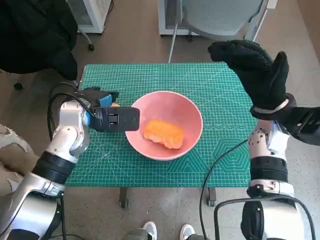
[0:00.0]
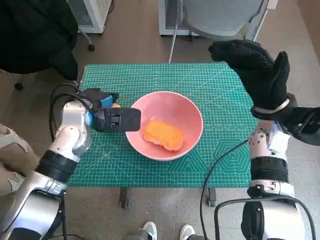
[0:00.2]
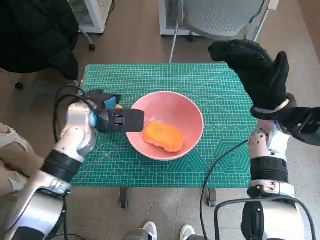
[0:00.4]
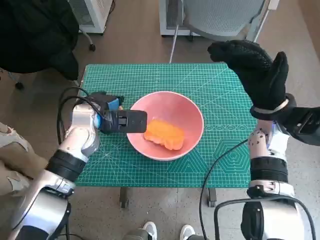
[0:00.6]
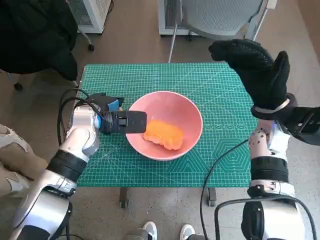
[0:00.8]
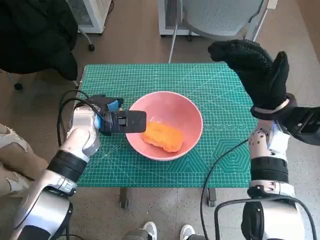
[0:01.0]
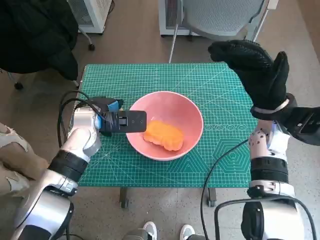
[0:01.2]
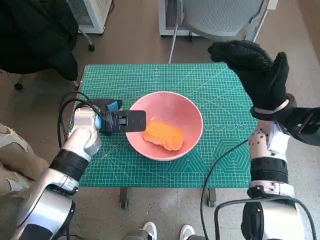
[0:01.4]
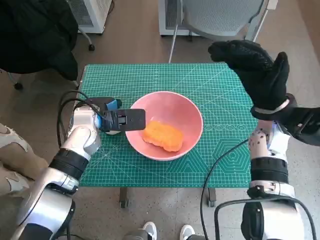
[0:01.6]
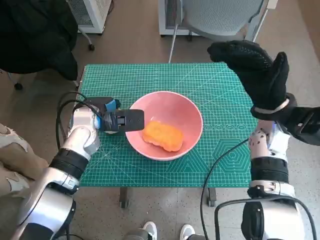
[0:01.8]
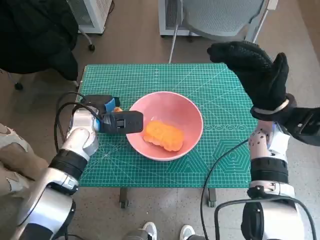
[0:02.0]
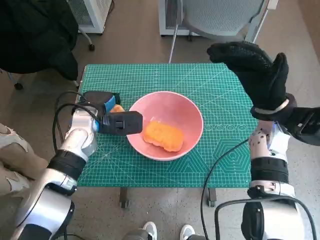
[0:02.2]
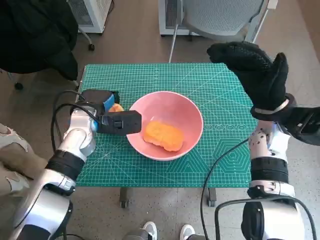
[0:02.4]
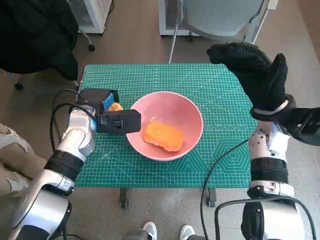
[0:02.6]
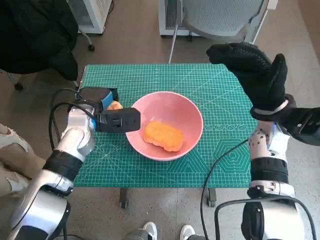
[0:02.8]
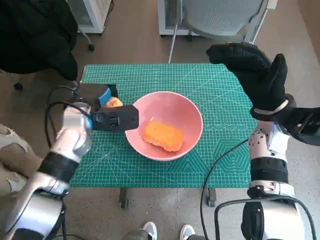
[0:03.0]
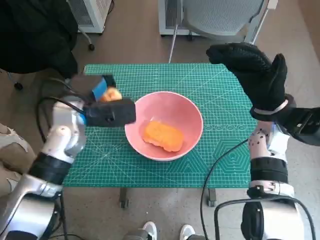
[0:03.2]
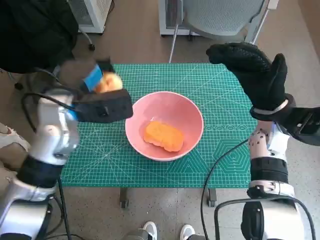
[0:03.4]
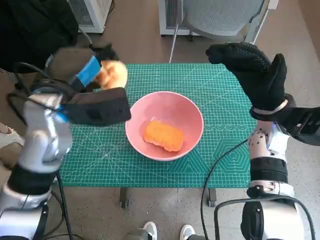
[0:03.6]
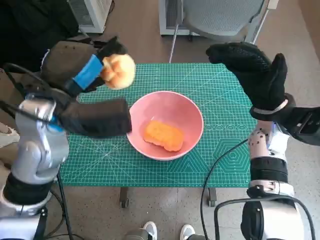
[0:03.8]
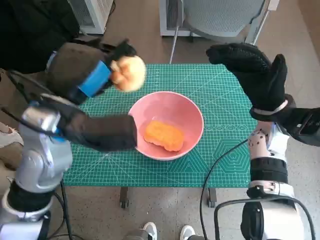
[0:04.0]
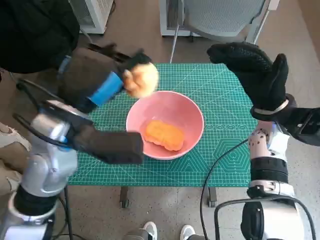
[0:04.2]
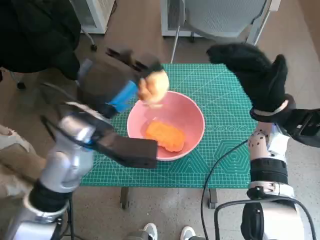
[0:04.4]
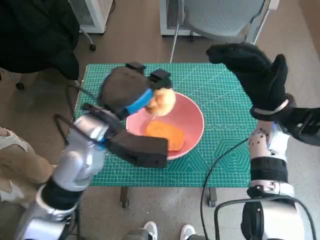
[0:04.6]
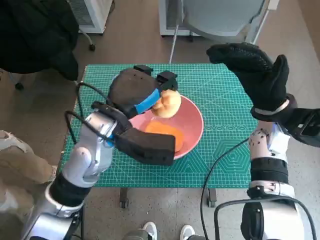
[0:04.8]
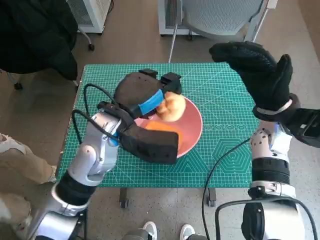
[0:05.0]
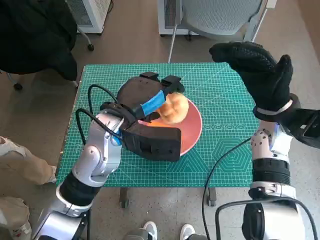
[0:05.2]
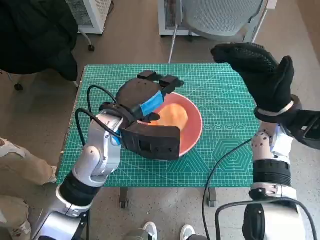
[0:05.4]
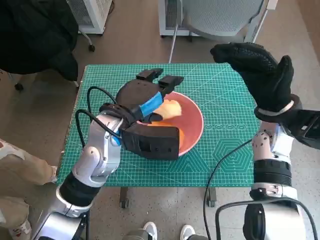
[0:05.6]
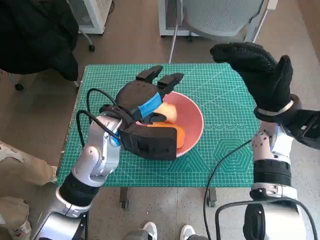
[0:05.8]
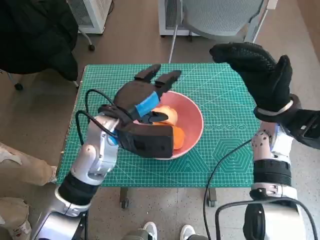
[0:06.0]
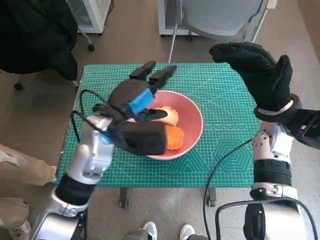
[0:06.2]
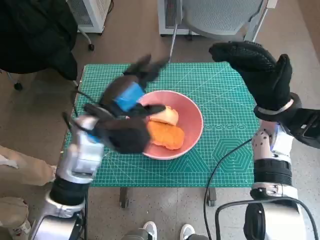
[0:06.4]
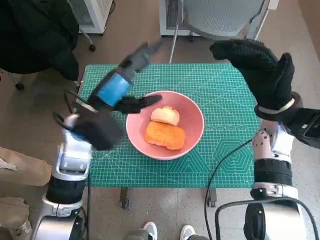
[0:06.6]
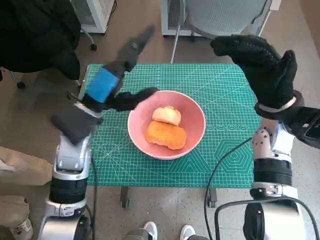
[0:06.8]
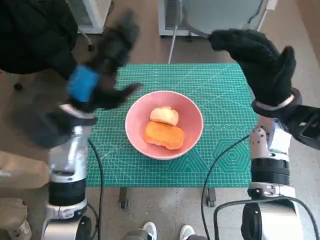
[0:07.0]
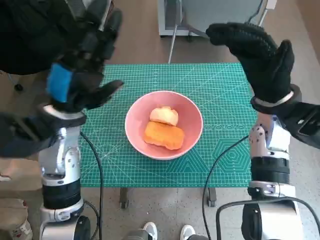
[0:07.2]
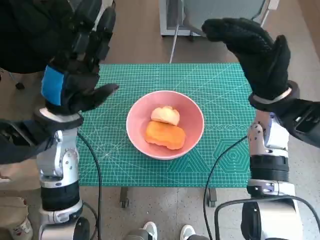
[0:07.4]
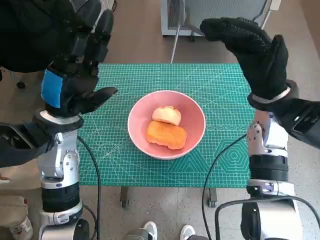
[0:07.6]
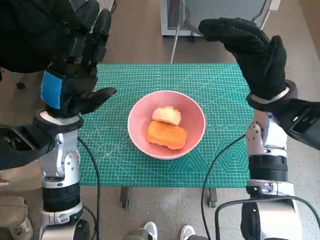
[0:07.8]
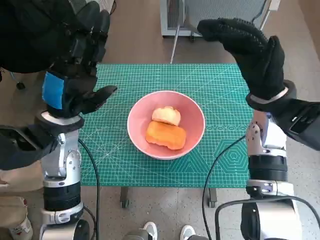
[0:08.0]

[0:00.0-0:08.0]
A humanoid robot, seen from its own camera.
Step, 0:02.0 to 0:05.6: Place the round bread in pink bowl with left hand.
0:00.0 to 0:01.6: There are only small adjustments of the hands.
0:03.2 to 0:04.8: The left hand goes approximately 10 cm to the right and backward.
0:06.4 to 0:08.0: The left hand moves to the left, about 5 cm.

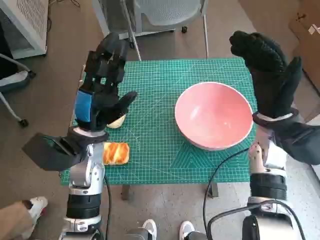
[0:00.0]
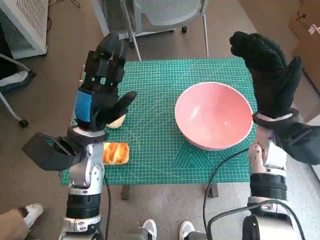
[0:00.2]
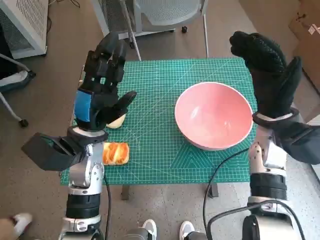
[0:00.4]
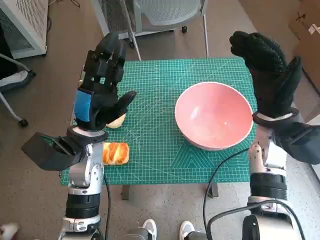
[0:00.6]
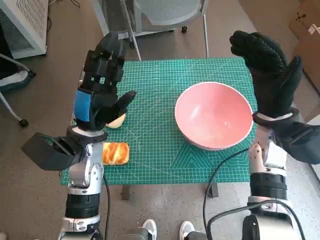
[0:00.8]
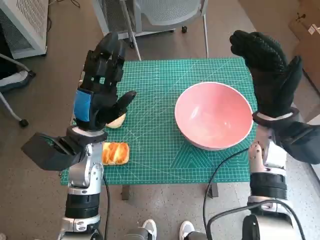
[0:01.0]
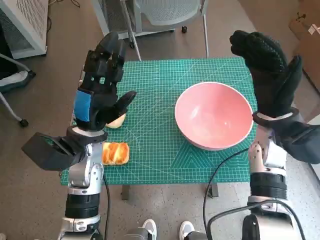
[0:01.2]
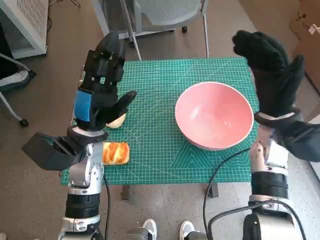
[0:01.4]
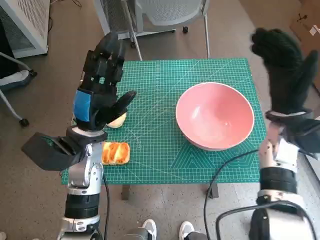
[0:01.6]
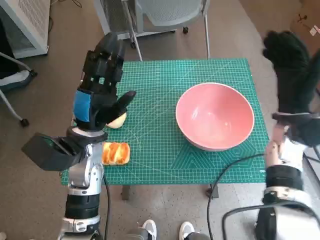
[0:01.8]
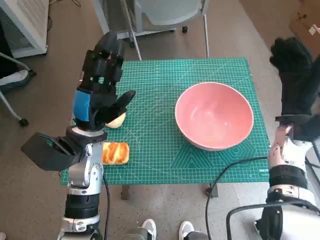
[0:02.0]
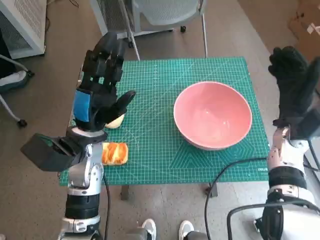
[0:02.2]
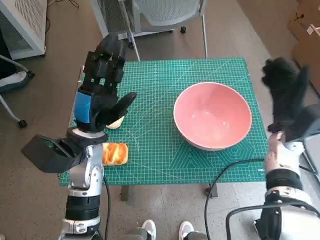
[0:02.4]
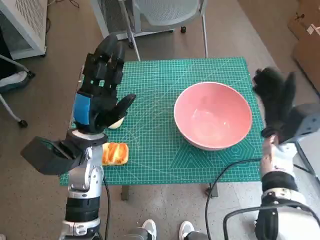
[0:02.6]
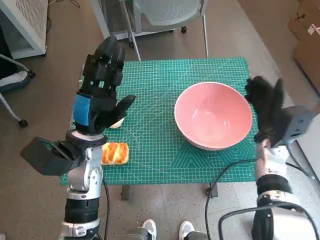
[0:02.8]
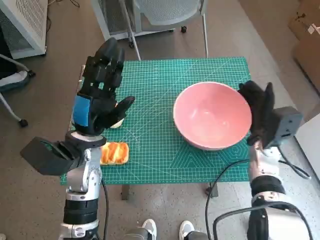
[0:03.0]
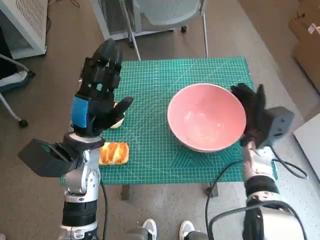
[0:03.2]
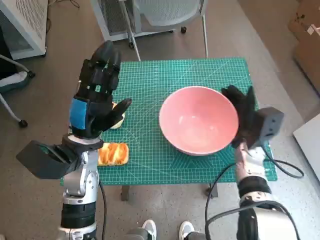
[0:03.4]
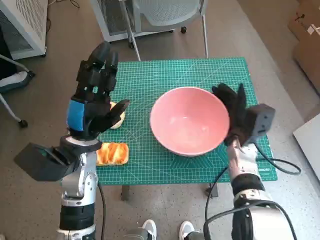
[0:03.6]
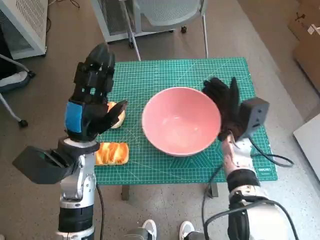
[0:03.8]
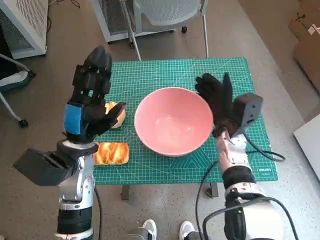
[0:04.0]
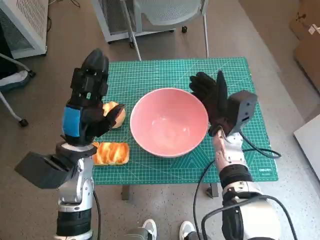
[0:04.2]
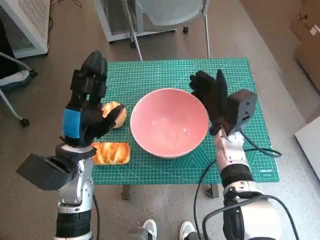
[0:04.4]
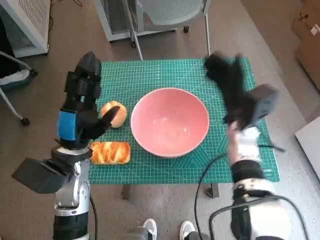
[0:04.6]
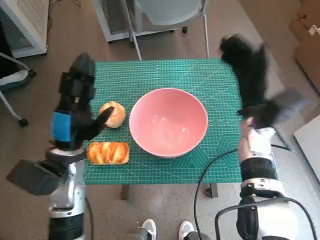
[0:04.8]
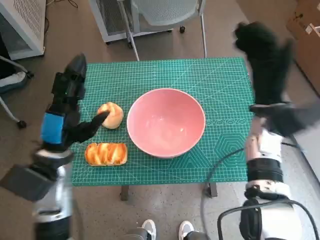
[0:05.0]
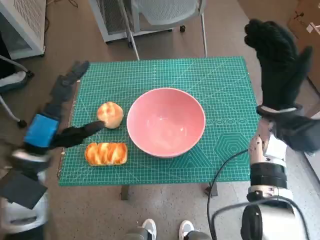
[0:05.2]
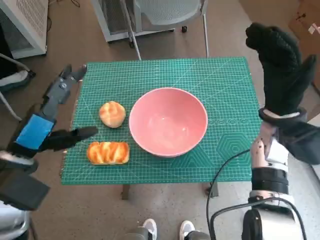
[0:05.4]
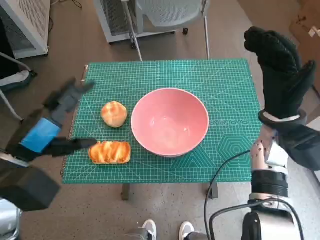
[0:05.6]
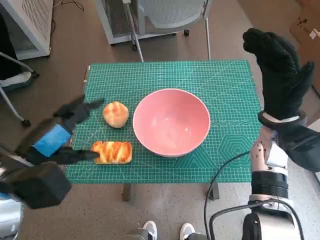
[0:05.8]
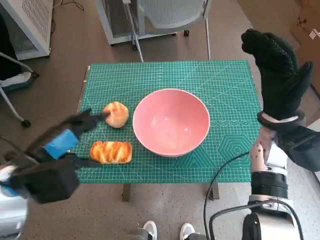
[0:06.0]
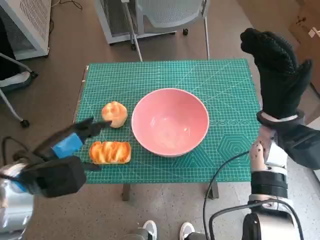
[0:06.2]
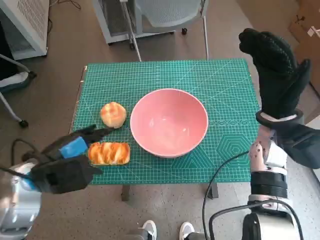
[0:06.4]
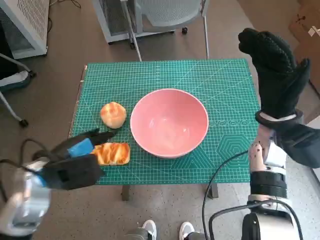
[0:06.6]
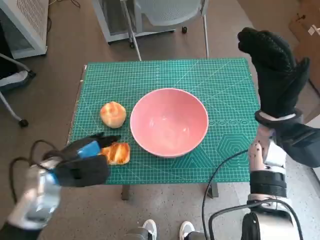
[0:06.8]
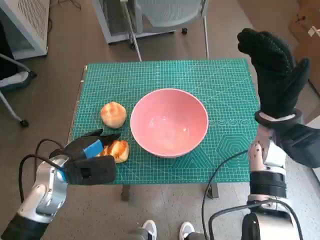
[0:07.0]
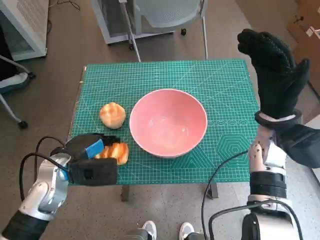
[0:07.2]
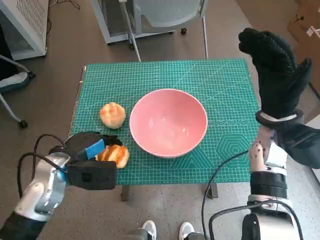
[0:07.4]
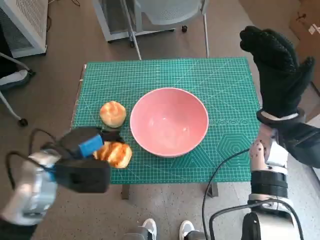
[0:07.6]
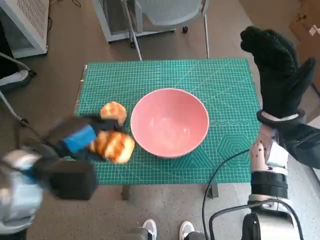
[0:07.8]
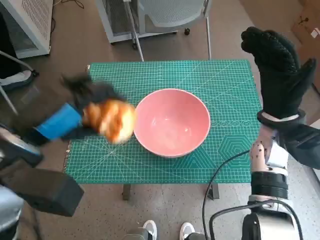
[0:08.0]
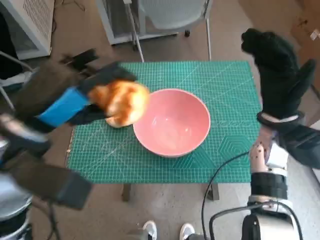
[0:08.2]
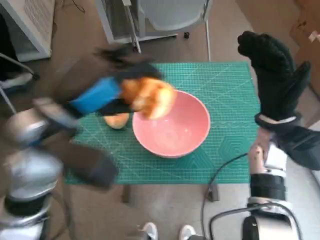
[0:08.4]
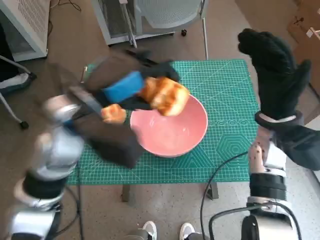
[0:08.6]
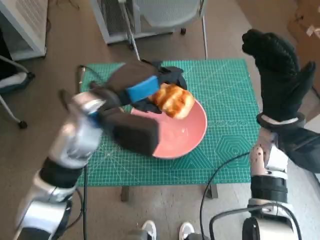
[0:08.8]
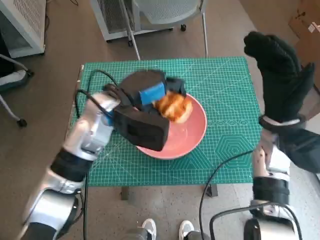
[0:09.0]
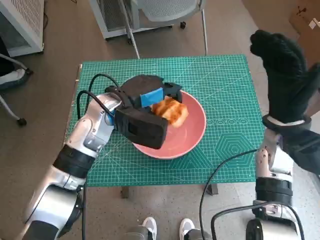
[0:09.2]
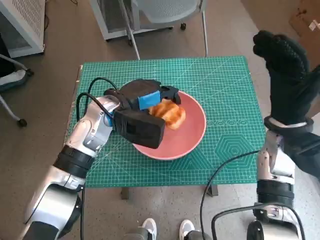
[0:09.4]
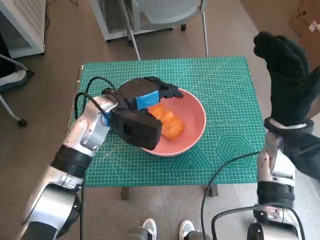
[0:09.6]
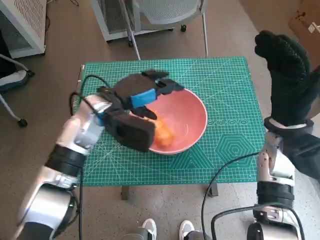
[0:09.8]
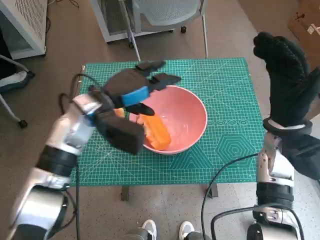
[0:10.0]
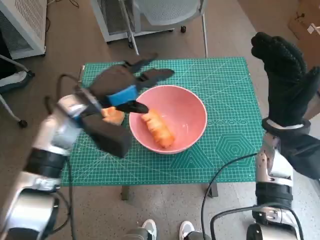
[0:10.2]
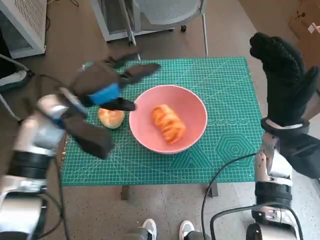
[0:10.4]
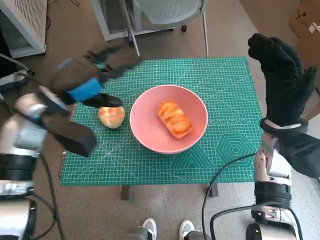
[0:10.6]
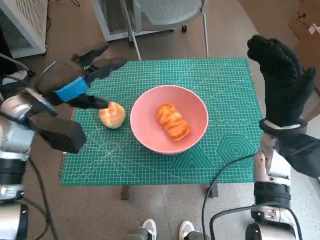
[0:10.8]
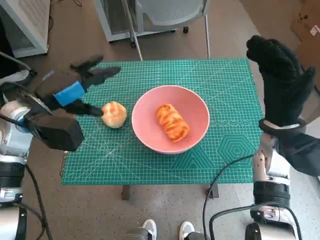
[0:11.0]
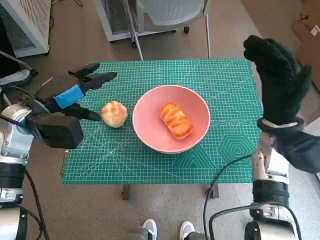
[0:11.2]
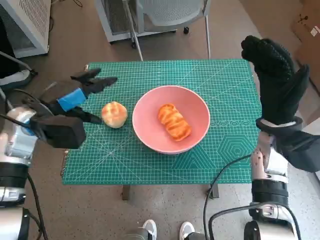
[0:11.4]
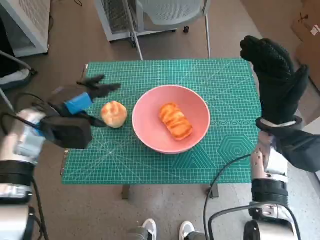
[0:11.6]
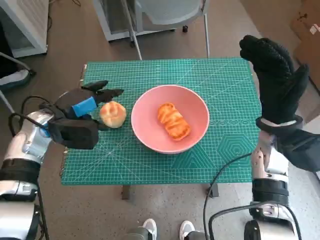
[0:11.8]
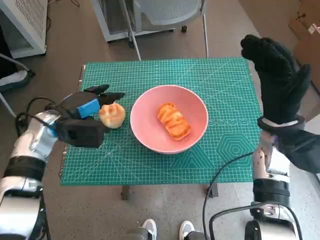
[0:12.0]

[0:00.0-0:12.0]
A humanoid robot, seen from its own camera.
Step, 0:00.0 to 0:04.4: Move the pink bowl to the center of table with right hand.
Step, 0:04.6 to 0:07.2: Grasp the long bread with left hand.
Step, 0:07.4 to 0:09.6: Place the long bread in pink bowl with left hand.
0:01.6 to 0:03.0: The right hand moves downward, approximately 10 cm.
0:03.0 to 0:04.4: The right hand moves to the left, roughly 10 cm.
0:04.4 to 0:06.0: The right hand moves upward and to the right, roughly 10 cm; the left hand moves upward, to the left and backward, approximately 10 cm.
0:07.6 to 0:09.0: The left hand heads to the right, forward and upward, covering about 15 cm.
0:09.0 to 0:10.4: The left hand heads to the left, covering roughly 10 cm.
0:10.4 to 0:12.0: The left hand is displaced downward and to the left by about 10 cm.

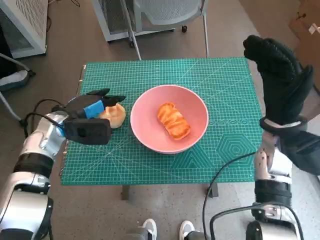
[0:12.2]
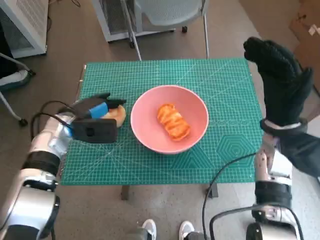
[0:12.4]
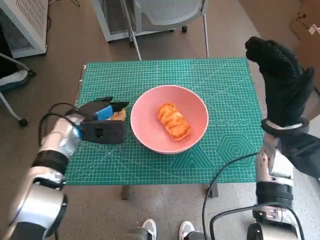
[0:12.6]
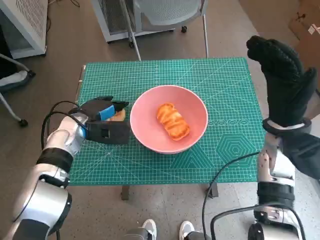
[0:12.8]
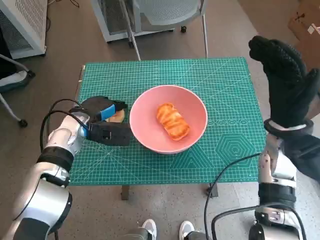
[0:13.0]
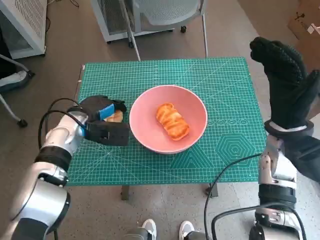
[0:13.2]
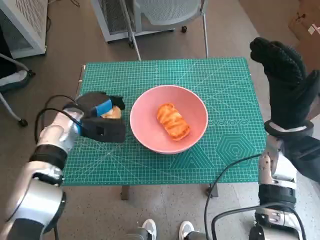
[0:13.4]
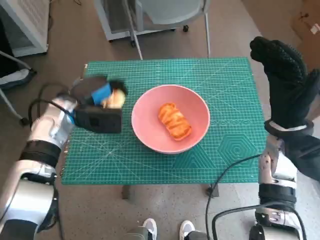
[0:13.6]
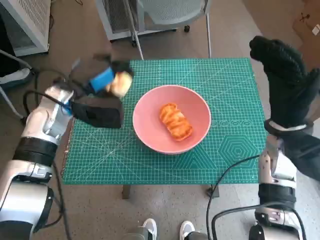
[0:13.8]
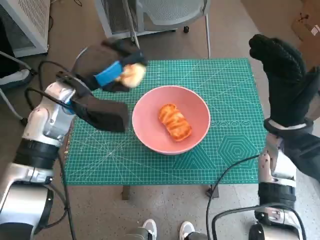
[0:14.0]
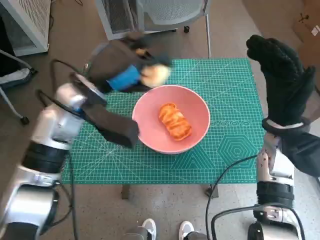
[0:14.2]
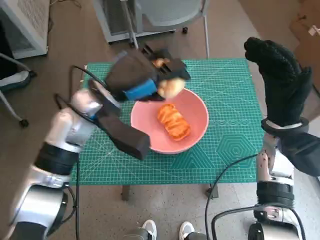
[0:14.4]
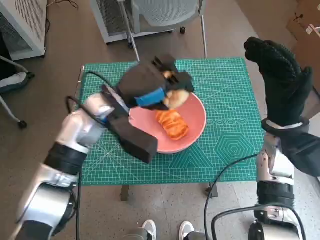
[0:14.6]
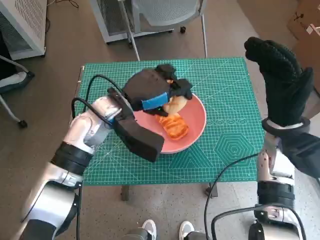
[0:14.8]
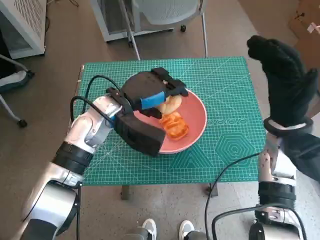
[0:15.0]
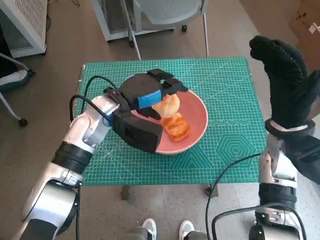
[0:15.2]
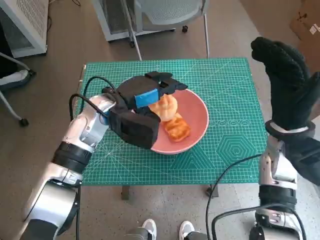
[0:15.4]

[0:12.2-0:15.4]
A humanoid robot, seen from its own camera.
Step, 0:13.4 to 0:15.4: Place the round bread in pink bowl with left hand.
0:12.2 to 0:13.8: The left hand shifts roughly 5 cm upward.
0:13.8 to 0:15.4: The left hand is displaced to the right by roughly 10 cm.
